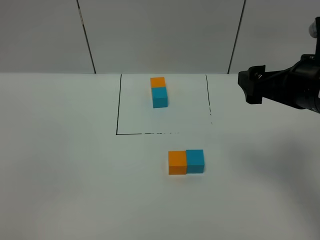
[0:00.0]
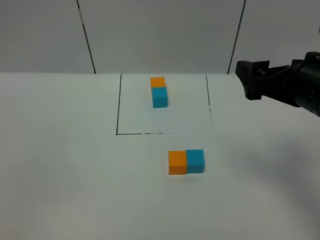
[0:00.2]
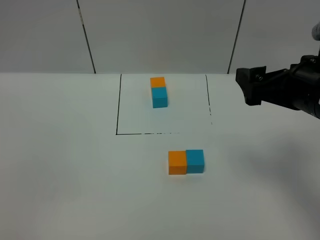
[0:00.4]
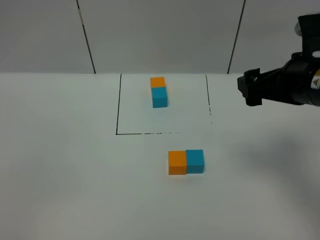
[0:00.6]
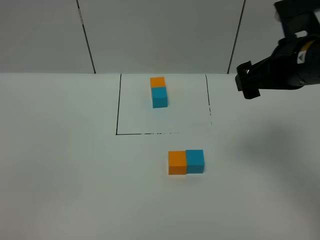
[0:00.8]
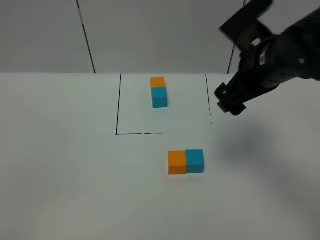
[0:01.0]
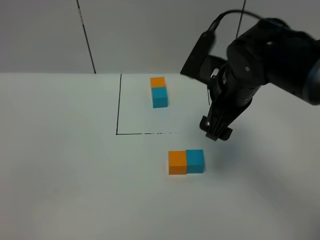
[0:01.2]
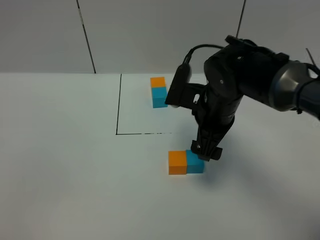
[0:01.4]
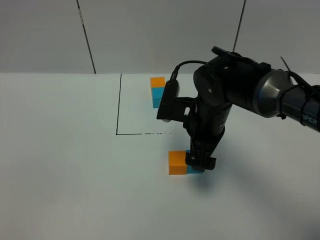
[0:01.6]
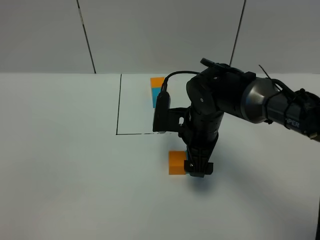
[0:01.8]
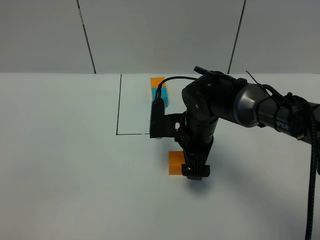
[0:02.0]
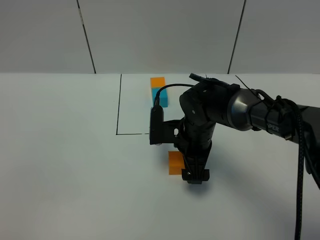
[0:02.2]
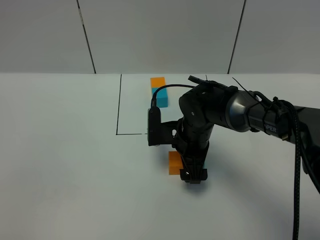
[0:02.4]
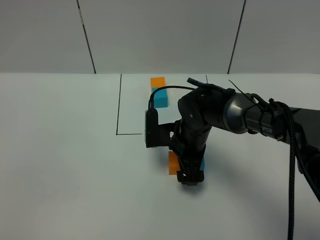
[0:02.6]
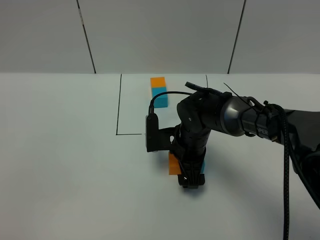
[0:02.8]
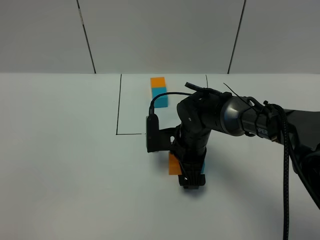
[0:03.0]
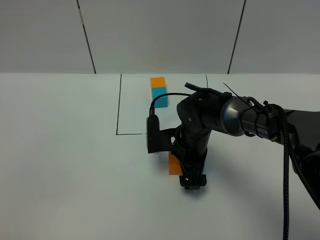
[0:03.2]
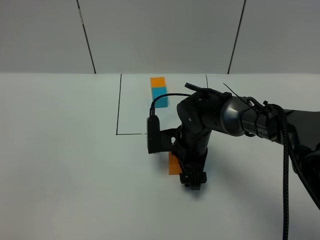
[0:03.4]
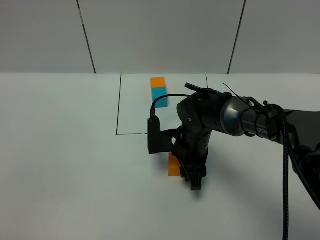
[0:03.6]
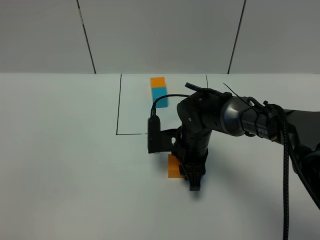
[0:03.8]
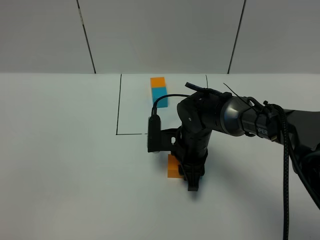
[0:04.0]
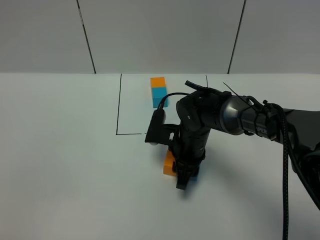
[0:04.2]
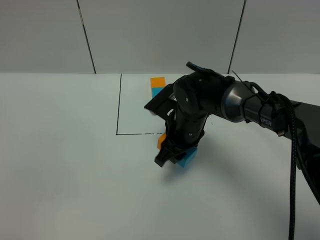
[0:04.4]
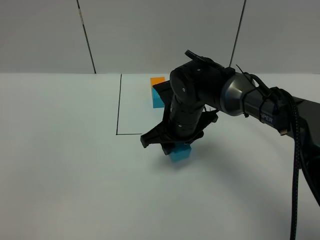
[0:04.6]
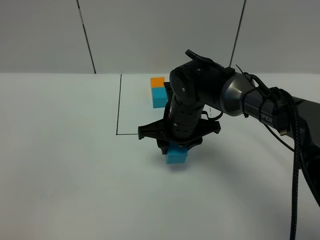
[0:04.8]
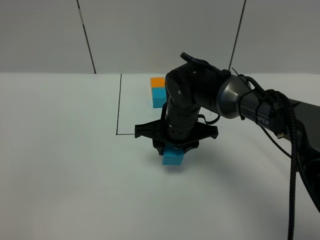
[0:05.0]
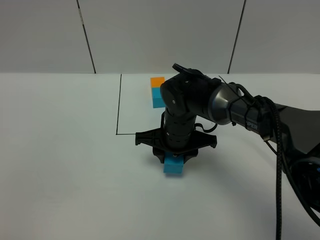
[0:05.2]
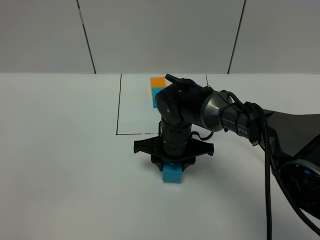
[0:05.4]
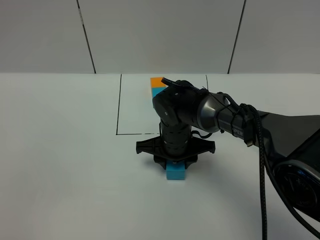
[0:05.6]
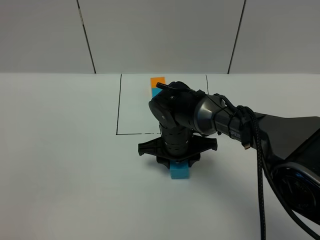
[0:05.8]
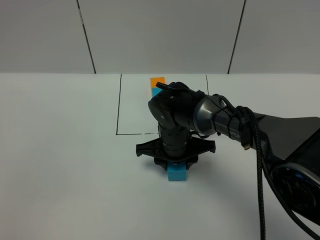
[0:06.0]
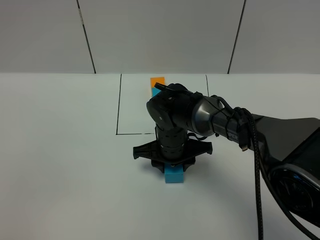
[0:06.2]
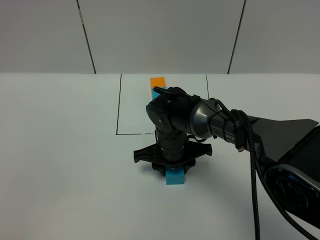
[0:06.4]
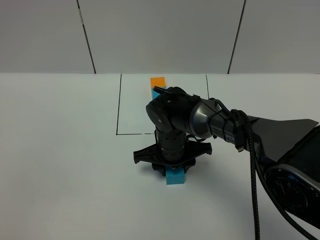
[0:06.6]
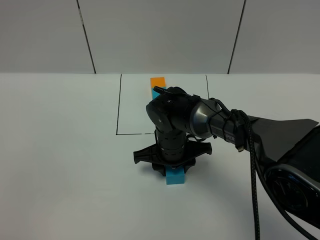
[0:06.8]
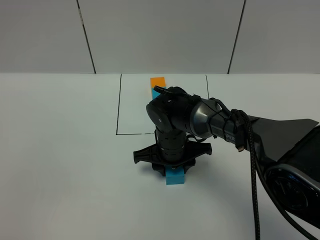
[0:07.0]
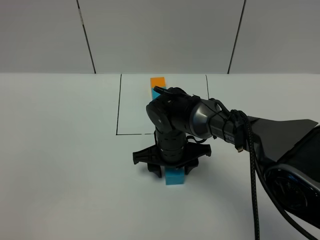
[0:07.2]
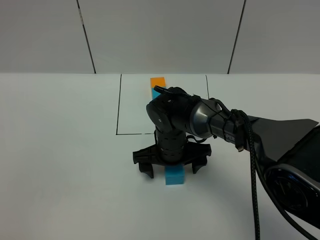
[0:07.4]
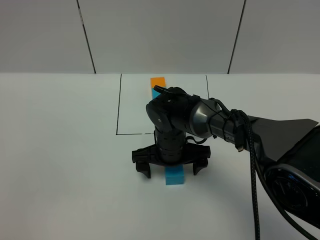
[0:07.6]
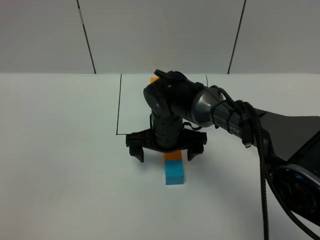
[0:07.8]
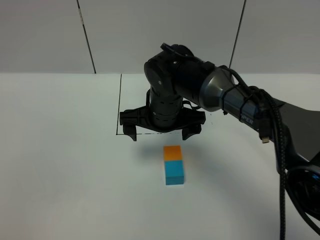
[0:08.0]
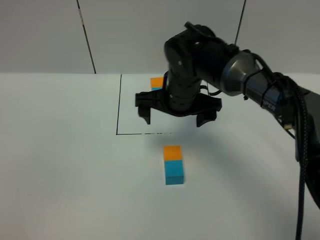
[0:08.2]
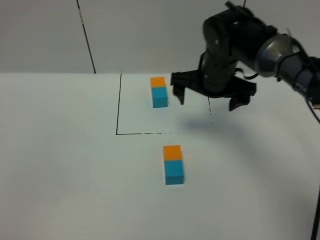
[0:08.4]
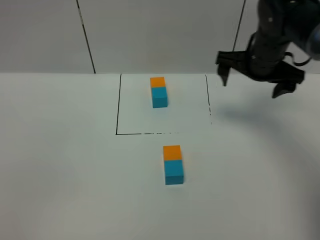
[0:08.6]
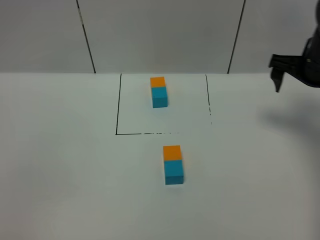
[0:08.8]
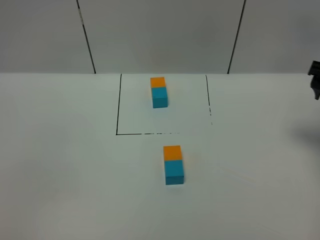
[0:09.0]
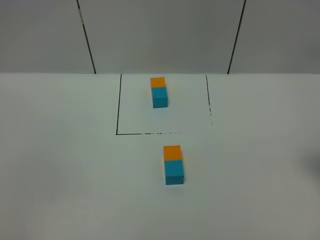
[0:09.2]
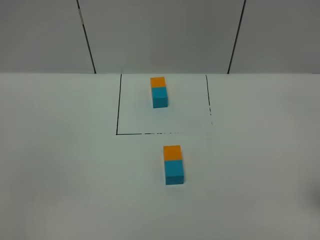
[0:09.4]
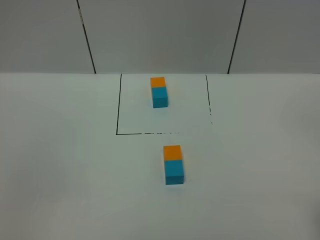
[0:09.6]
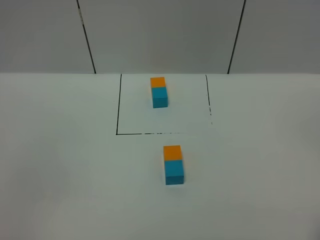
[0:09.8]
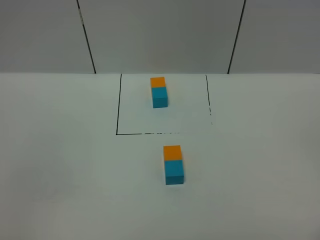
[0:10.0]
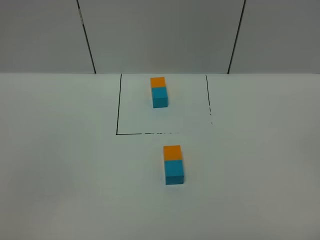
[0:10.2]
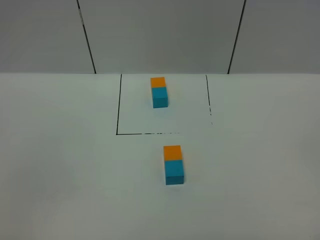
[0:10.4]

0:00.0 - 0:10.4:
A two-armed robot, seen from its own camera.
Task of the whole recording: According to the building block template in front, assemble the scattered blocks together.
Step, 0:00.0 - 0:07.6: Adjust the pose of the building blocks.
0:00.0 - 0:01.4: The right gripper shifts roughly 20 cm to the left, downward and forward.
0:01.4 - 0:03.0: The right gripper shifts some 10 cm downward.
0:03.0 - 0:04.4: The right gripper closes up.
0:06.0 - 0:07.4: The right gripper opens up.
0:07.4 - 0:09.0: The right gripper is displaced to the right and upward by roughly 35 cm.
0:09.0 - 0:10.4: The right gripper heads backward, covering approximately 30 cm.

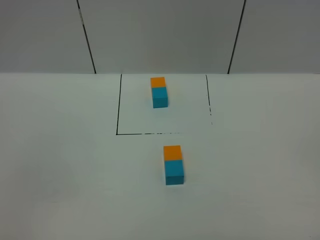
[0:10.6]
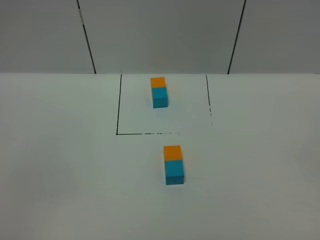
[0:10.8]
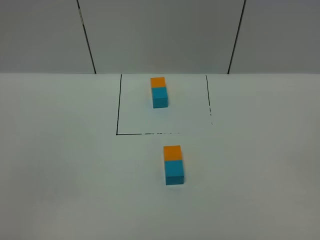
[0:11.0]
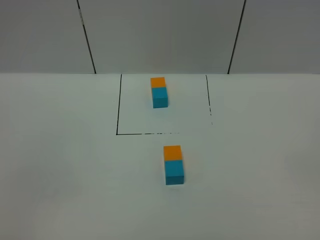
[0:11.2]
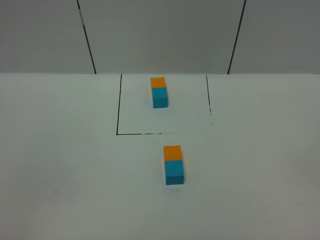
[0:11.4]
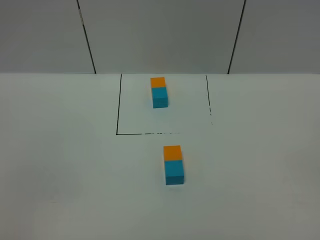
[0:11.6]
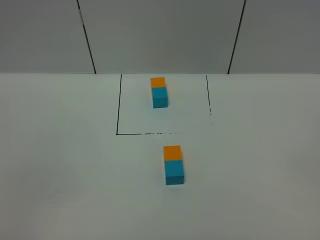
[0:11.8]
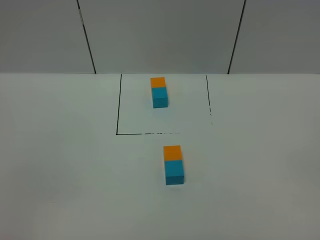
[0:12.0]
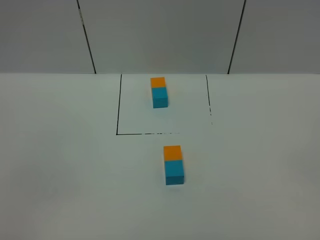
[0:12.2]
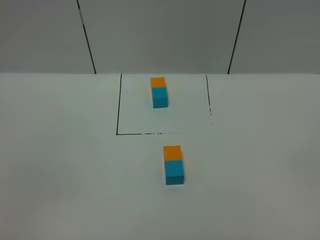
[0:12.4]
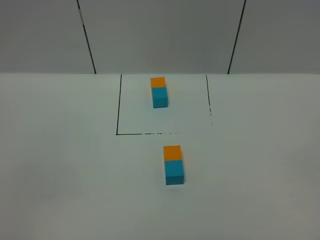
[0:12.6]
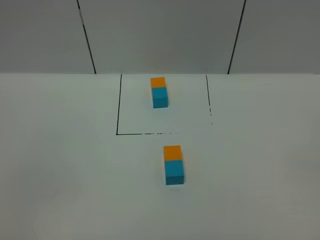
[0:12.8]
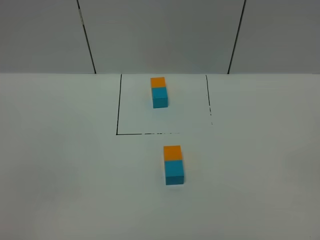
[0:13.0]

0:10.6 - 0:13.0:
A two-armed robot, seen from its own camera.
Task of the whole recording: According to the building block template in front, assemble the scattered blocks together.
0:11.8 - 0:13.0: Both grippers stay put.
